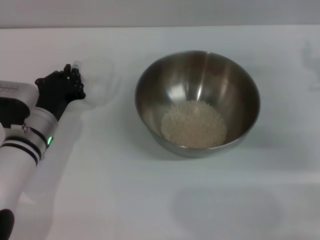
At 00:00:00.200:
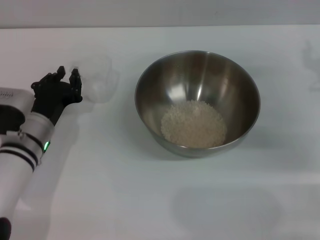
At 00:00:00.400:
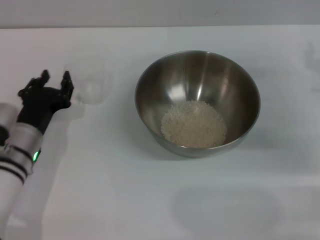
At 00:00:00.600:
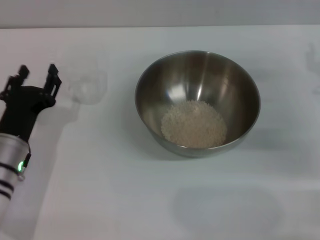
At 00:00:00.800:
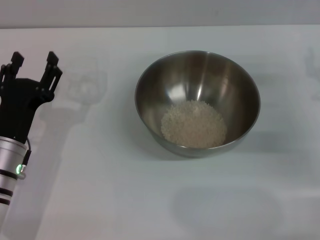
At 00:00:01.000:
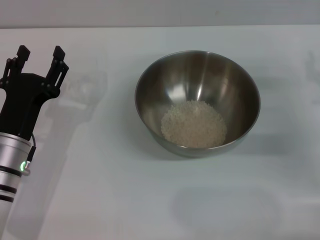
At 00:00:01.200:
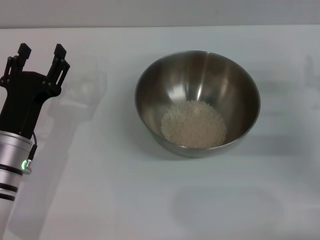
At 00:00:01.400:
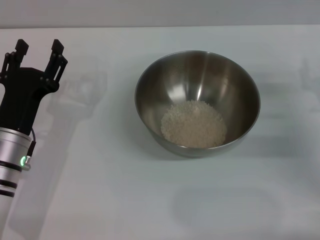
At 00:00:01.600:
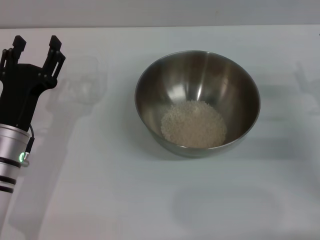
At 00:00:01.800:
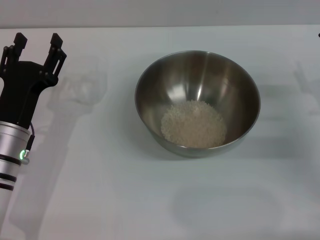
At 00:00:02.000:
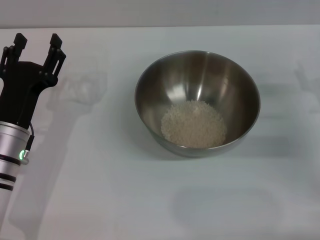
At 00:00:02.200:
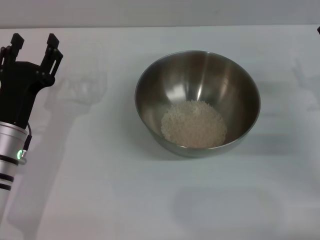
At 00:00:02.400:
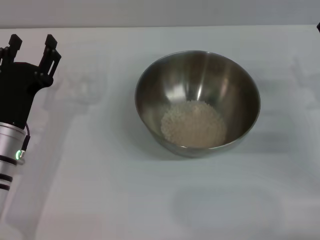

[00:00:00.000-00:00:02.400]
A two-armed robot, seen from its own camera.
Task of the whole recording: Place the bowl in the middle of the table with one hand and pour the rice from the grain cup into it with the other hand.
00:00:00.000 to 00:00:01.200: The left gripper goes about 5 cm backward, and opens up.
00:00:01.200 to 00:00:02.400: The grippers make only small movements.

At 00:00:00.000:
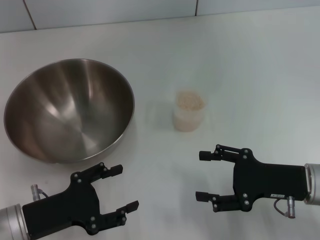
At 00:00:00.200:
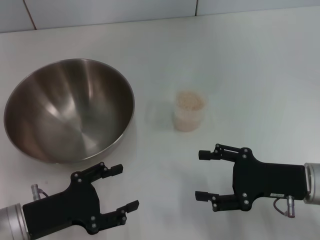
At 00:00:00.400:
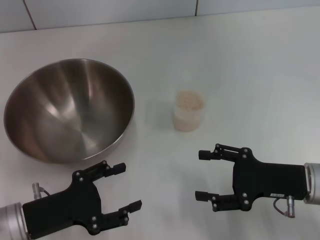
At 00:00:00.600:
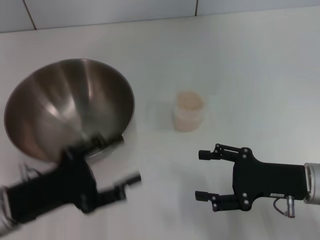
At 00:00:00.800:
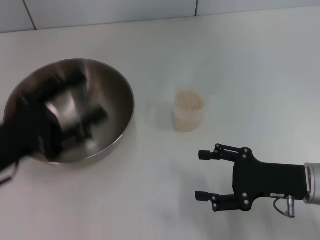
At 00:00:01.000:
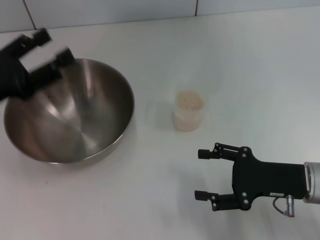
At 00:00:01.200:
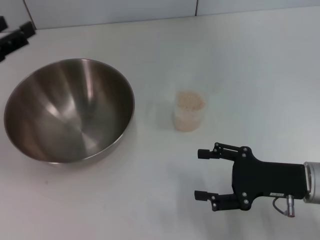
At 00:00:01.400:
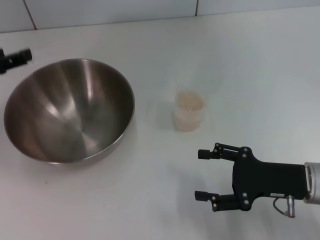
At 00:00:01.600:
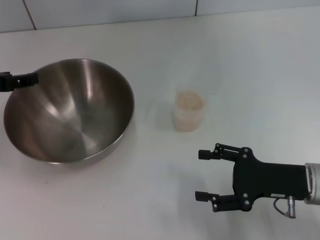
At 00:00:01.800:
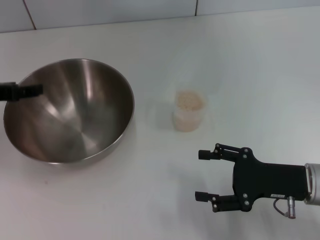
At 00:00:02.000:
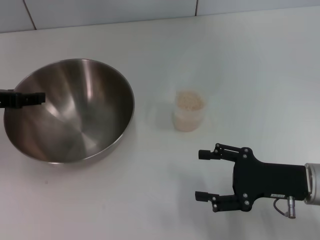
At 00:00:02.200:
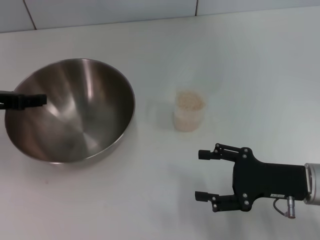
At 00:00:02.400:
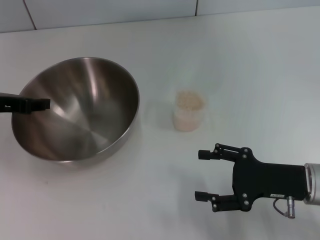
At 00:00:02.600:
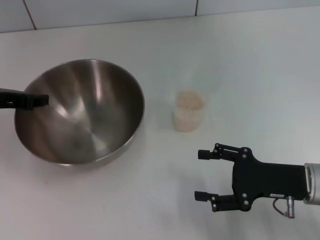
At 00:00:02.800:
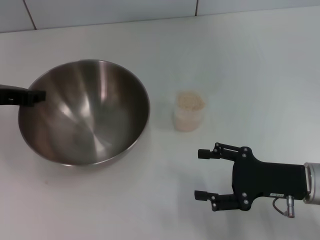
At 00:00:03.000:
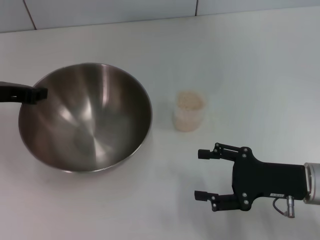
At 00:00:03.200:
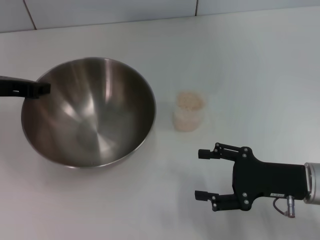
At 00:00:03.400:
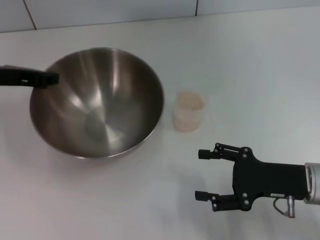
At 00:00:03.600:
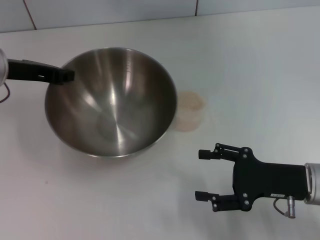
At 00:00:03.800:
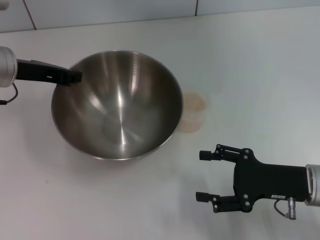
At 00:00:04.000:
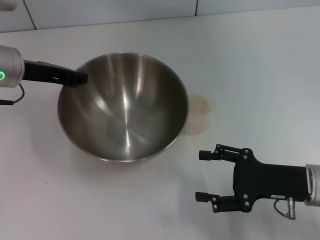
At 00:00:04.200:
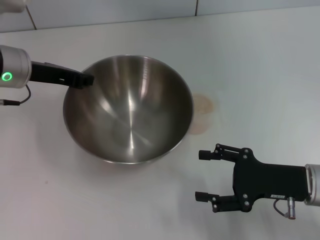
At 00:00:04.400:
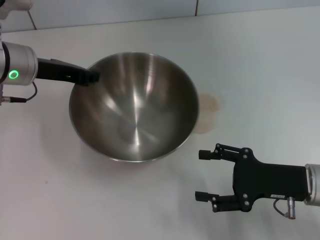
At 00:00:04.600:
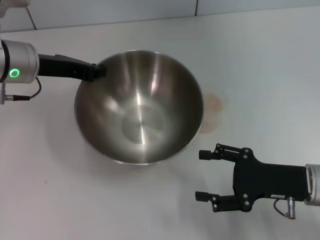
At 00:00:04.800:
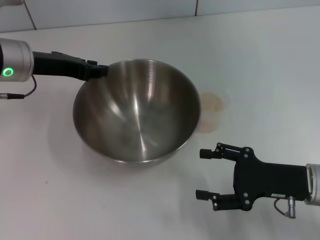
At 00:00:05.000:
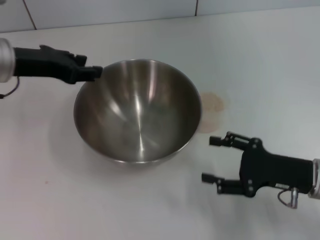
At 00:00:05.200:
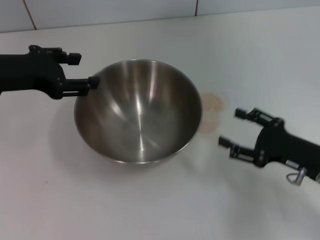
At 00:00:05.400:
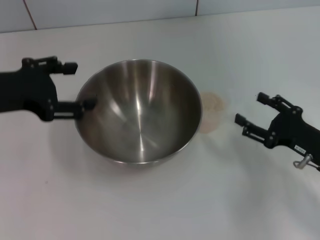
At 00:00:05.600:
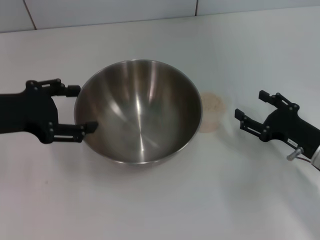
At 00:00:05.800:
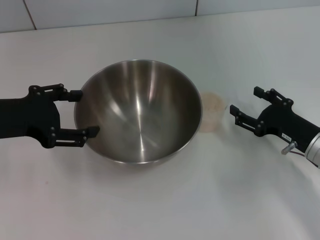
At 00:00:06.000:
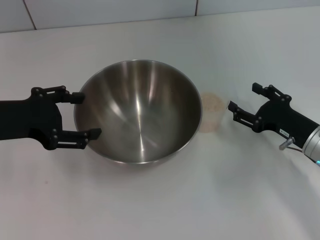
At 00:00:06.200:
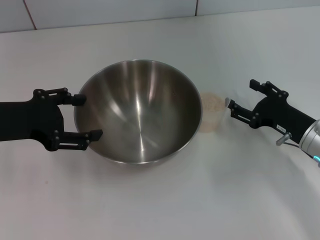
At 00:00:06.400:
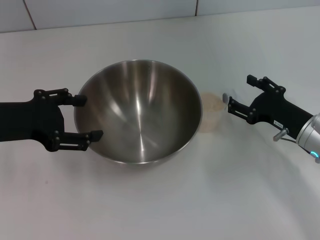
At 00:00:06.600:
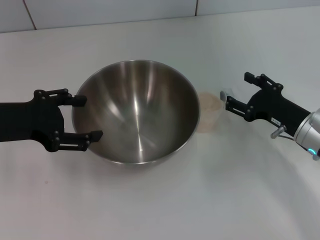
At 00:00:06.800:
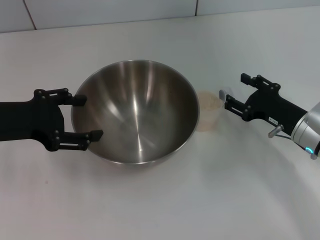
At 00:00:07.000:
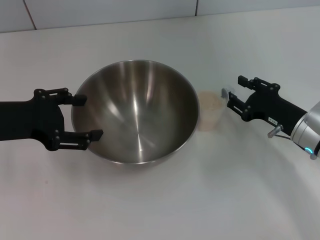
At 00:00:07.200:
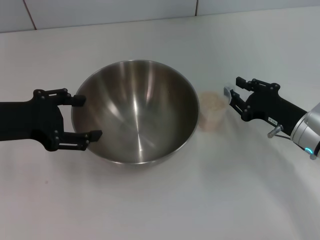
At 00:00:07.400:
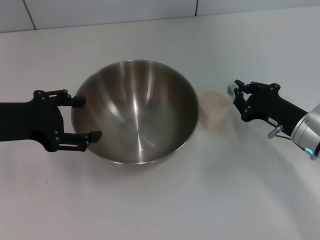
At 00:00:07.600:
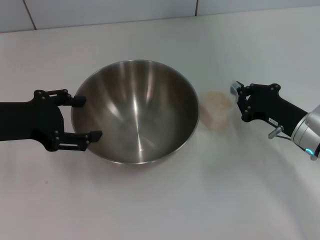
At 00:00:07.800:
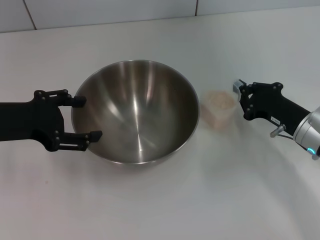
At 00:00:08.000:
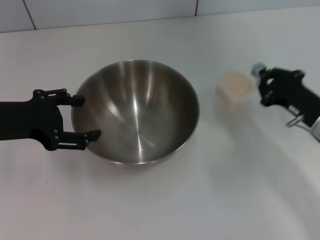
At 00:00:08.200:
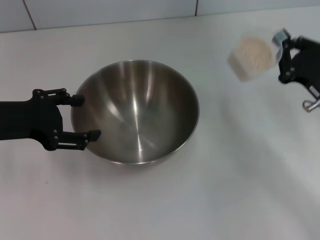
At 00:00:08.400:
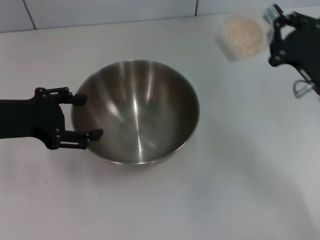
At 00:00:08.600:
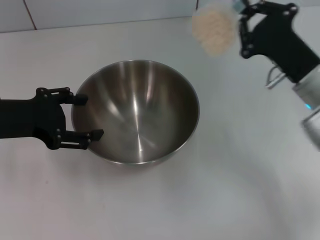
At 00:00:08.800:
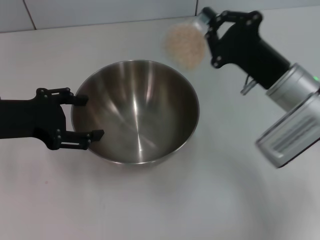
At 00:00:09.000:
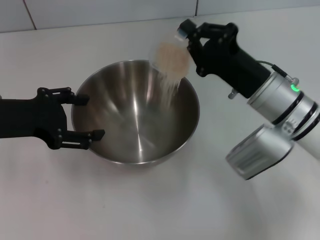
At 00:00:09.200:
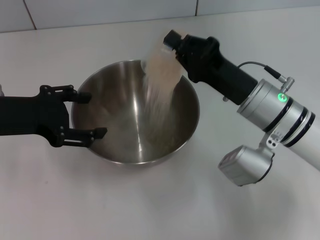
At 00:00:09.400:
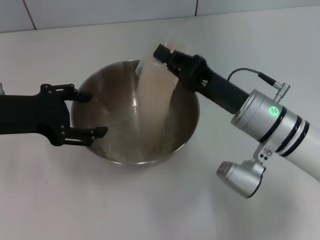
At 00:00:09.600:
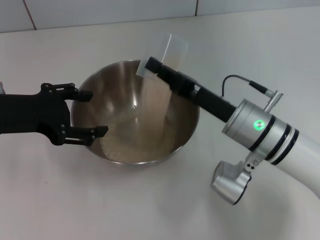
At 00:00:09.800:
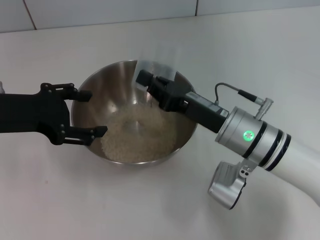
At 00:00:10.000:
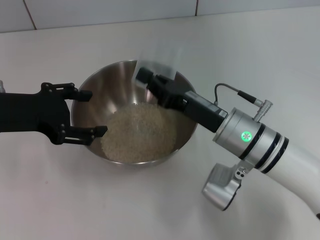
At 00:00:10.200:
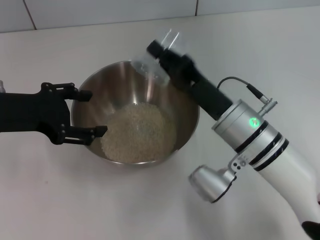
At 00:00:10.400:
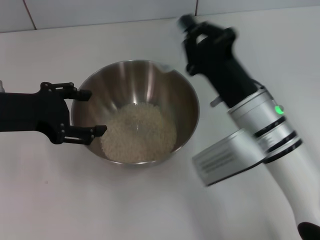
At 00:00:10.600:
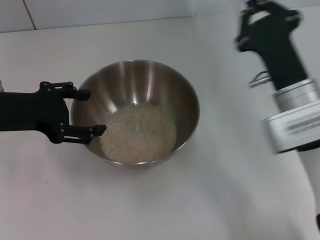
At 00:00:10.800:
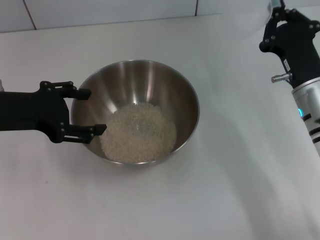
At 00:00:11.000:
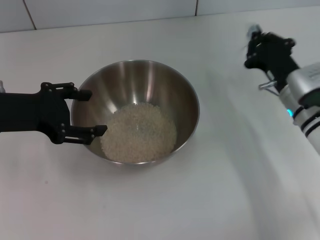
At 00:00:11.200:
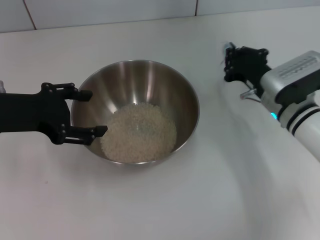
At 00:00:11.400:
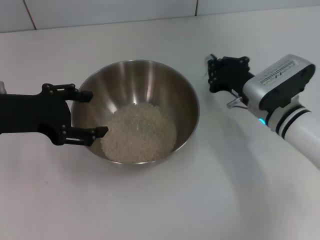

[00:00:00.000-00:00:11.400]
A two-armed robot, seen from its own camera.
Task of the whole recording: Place the bowl in the middle of the table with one hand and pour the rice from the grain cup into it with the other hand.
Step, 00:00:00.000 to 00:00:03.200: Pick up the bowl with the left gripper.
Step, 00:00:03.400 to 00:00:05.000: Place the bowl in the center of view with the left gripper.
Step, 00:00:05.200 to 00:00:08.200: Pick up the cup with rice in it with the right gripper.
Step, 00:00:08.400 to 00:00:10.400: Pour the rice from the cup into the bowl with the right gripper.
00:00:00.000 to 00:00:01.400: The left gripper shifts some 20 cm upward, forward and to the left.
00:00:01.400 to 00:00:02.800: The left gripper closes.
00:00:02.800 to 00:00:04.200: The left gripper heads to the right, covering roughly 5 cm.
00:00:04.200 to 00:00:05.600: The left gripper shifts approximately 10 cm backward, and opens up. The right gripper ends up roughly 5 cm from where it was.
00:00:05.600 to 00:00:07.200: The grippers stay close to where they were, moving slightly.
00:00:07.200 to 00:00:08.600: The right gripper travels upward by approximately 5 cm, and closes up.
00:00:08.600 to 00:00:10.000: The right gripper travels to the left by about 10 cm.
00:00:10.000 to 00:00:11.400: The right gripper shifts about 10 cm to the right and forward.

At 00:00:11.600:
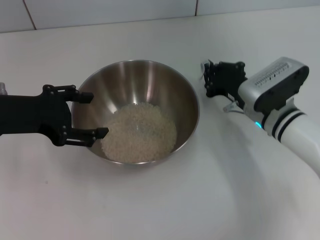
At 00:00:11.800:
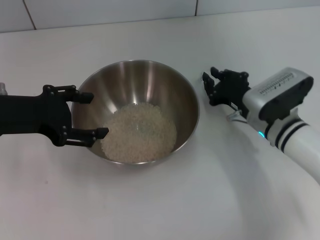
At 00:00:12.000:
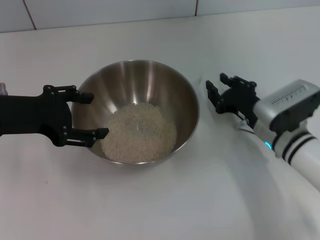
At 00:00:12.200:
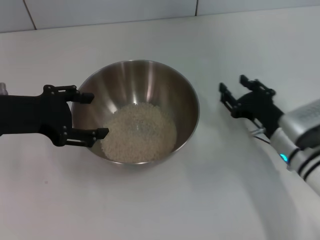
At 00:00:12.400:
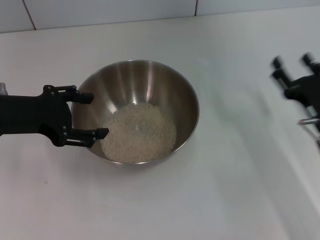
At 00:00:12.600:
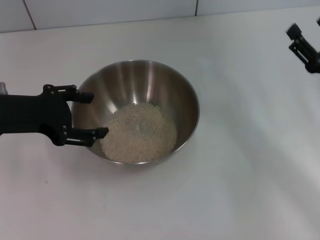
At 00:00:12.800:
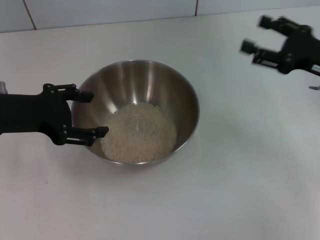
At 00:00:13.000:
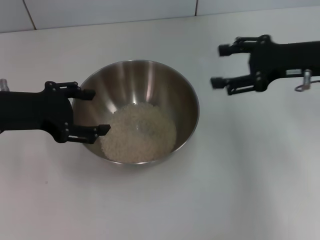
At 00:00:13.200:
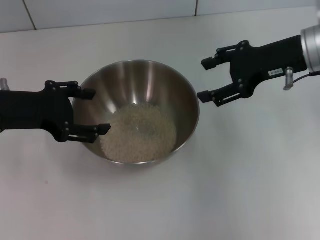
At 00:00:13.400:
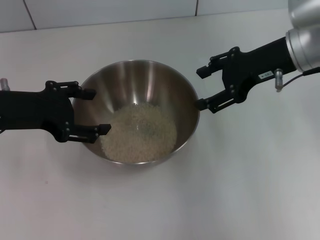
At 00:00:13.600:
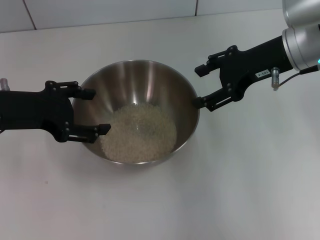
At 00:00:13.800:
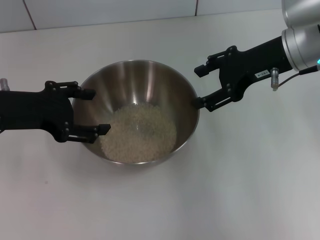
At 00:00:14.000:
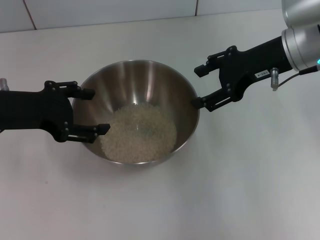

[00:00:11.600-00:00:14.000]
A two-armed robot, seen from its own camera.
Task of the whole recording: Place the bowl in the middle of the table with one hand and pour the rice from the grain cup into it with the other hand.
00:00:11.600 to 00:00:12.800: The right gripper heads to the right and upward, covering about 15 cm, and opens.
00:00:12.800 to 00:00:14.000: The right gripper shifts some 10 cm to the left and upward.
